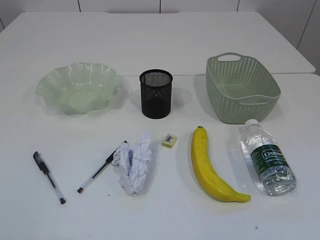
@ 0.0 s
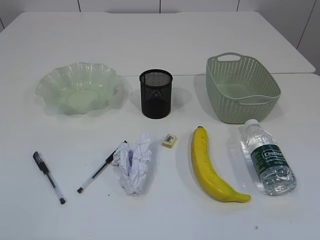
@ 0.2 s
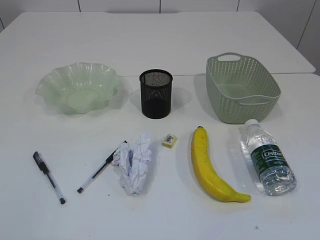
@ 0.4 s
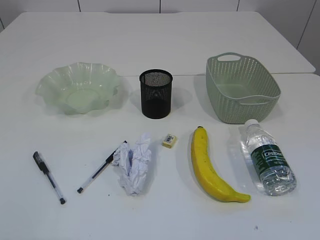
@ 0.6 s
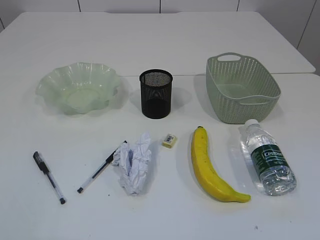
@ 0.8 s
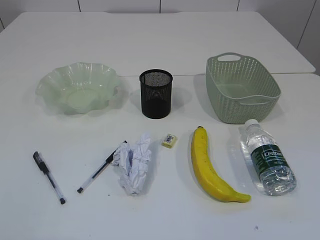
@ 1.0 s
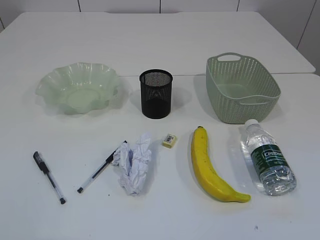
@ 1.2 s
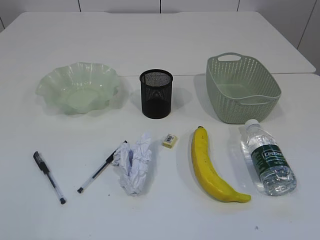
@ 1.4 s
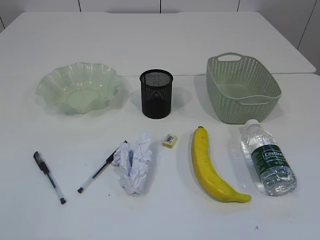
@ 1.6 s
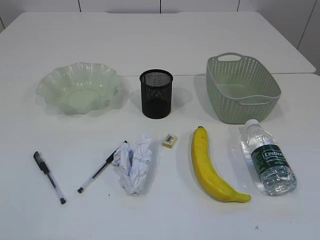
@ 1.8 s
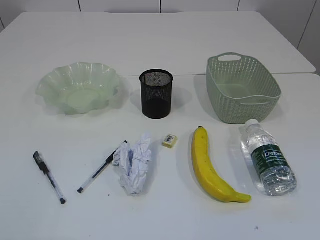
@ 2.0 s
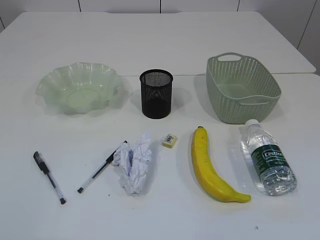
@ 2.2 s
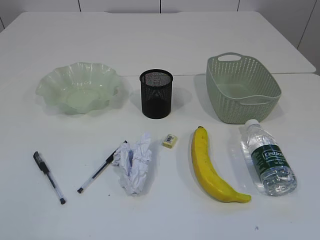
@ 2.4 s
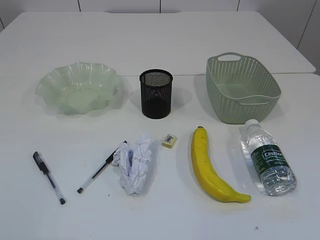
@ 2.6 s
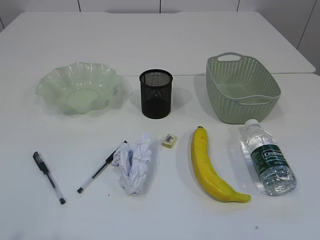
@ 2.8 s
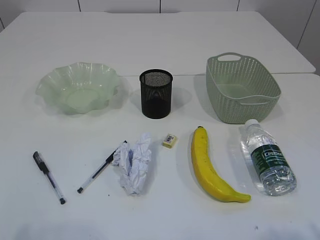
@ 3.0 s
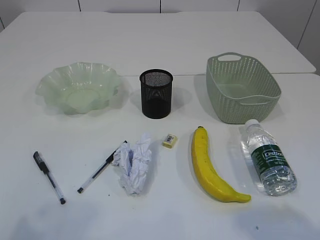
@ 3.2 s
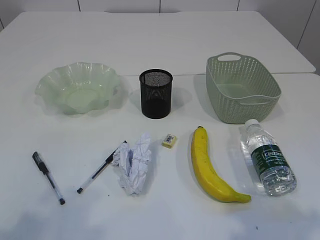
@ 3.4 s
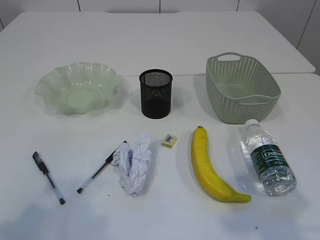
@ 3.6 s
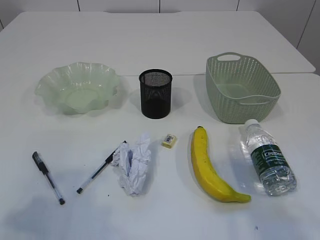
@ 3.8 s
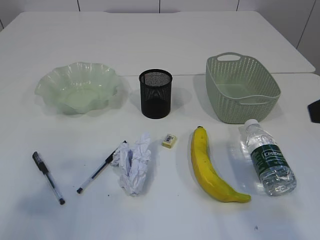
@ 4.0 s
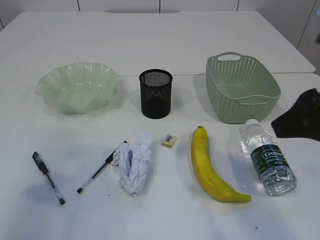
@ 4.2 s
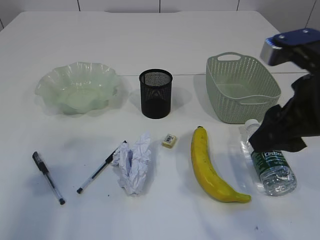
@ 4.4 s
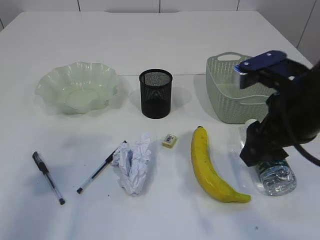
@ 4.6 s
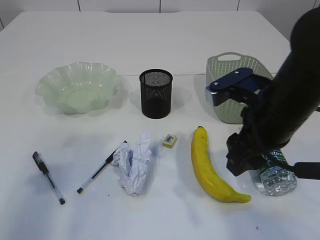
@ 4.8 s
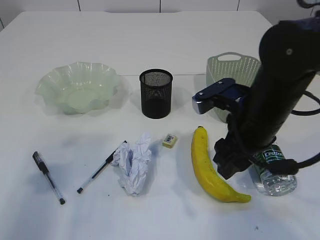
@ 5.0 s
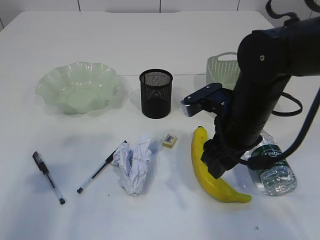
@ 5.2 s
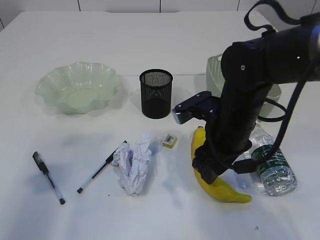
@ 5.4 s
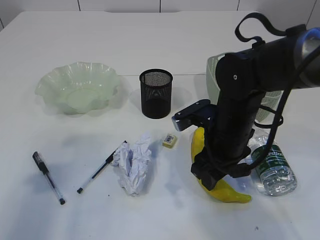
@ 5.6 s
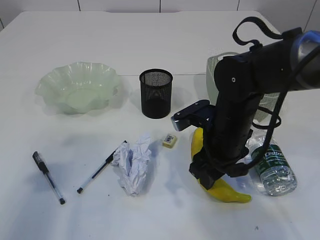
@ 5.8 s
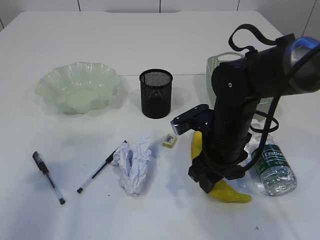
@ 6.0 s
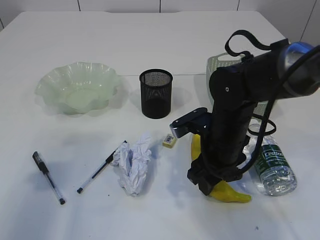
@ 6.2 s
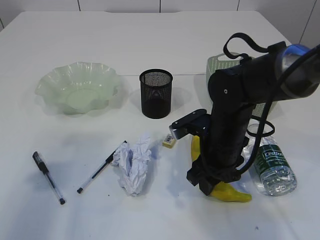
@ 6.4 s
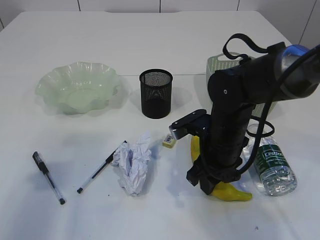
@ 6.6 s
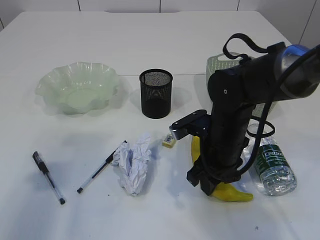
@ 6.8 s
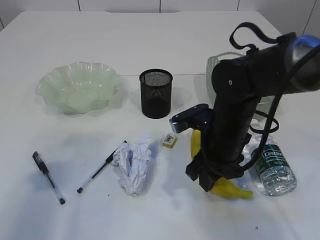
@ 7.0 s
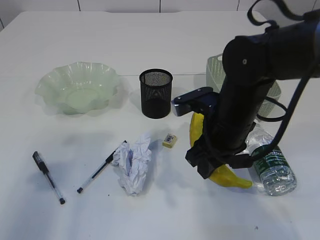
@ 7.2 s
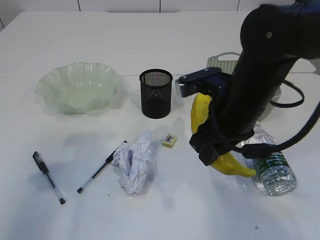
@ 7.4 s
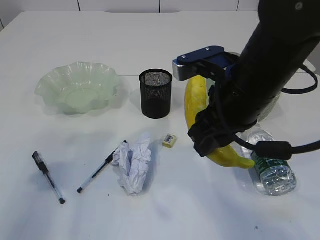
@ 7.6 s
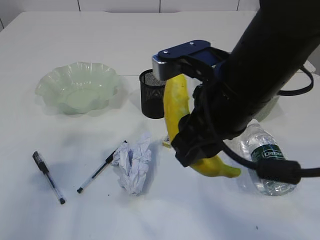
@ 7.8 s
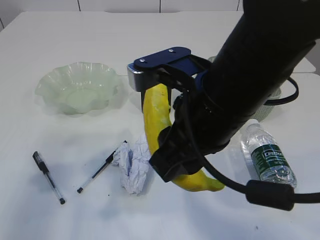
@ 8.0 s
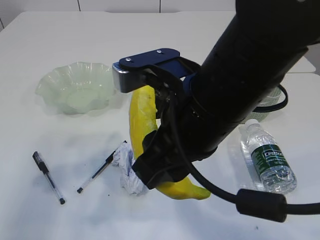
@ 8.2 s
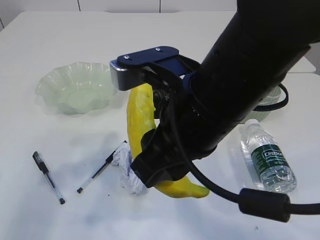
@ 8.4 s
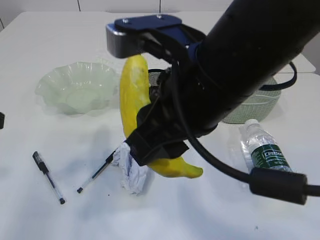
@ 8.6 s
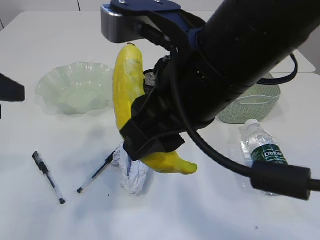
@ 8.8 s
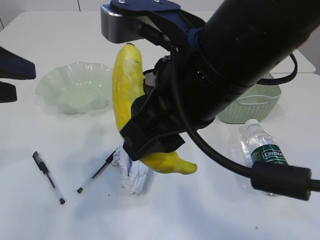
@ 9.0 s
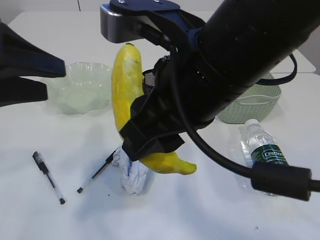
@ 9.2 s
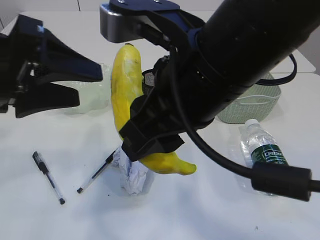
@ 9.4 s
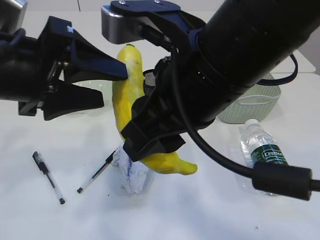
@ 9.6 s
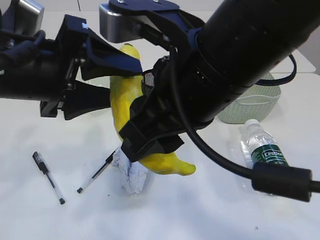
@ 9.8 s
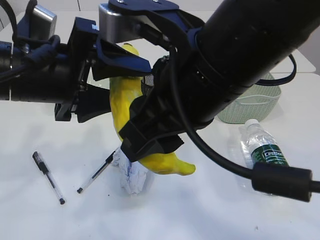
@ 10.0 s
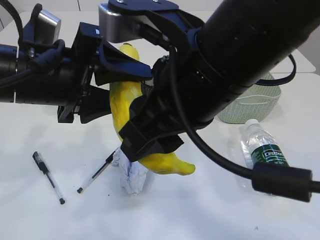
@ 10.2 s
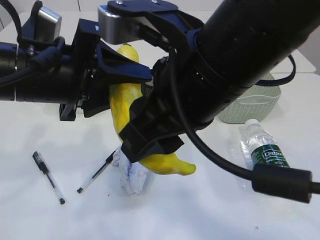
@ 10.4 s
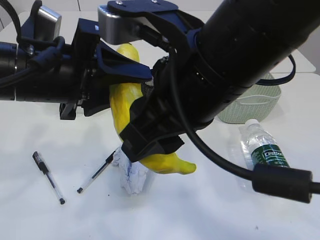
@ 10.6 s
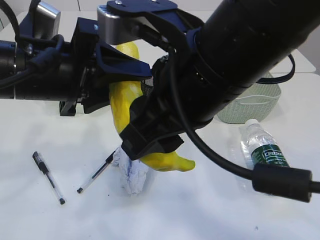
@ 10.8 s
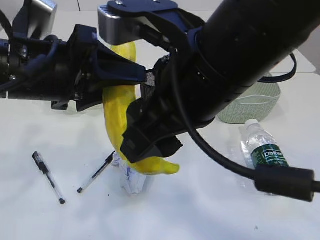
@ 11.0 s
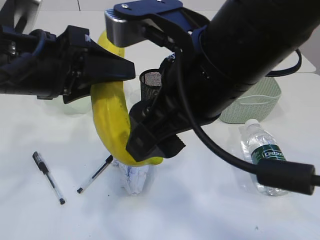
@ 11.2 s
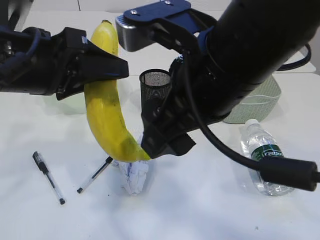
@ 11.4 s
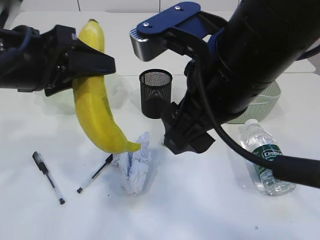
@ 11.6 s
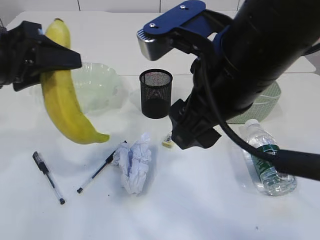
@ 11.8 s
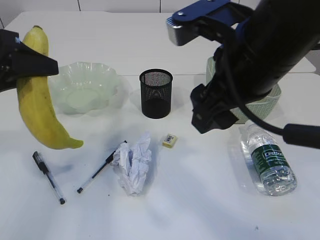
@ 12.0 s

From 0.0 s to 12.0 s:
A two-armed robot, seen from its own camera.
Step, from 7.6 s to 11.4 s: Hand over the banana.
From 3.0 s to 4.4 s: The grippers both shift forward by about 20 cm.
From 4.4 s to 6.0 s: The right gripper heads downward, forward and to the left, covering about 20 cm.
From 6.0 s to 7.6 s: The right gripper travels upward by some 10 cm.
From 7.6 s to 9.0 s: The left gripper shifts by roughly 5 cm. Meanwhile the right gripper shifts some 10 cm upward, backward and to the left.
From 9.0 s to 10.4 s: The left gripper shifts some 10 cm to the right.
From 10.4 s to 12.0 s: The left gripper travels to the left by approximately 10 cm. Meanwhile the right gripper goes about 5 cm to the right, and opens.

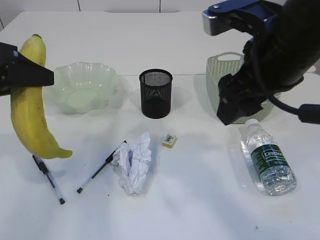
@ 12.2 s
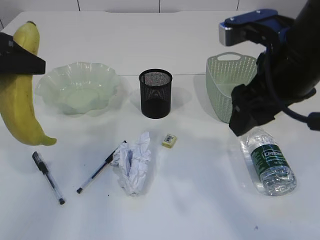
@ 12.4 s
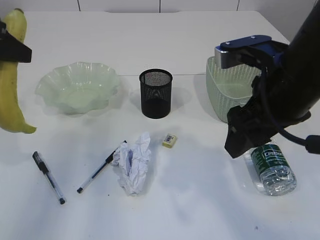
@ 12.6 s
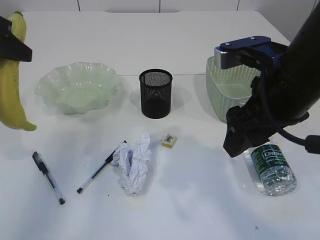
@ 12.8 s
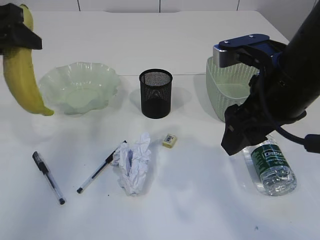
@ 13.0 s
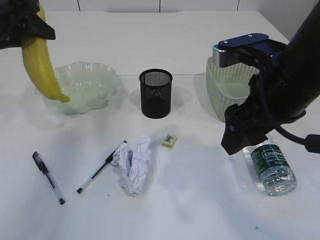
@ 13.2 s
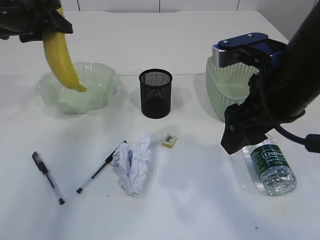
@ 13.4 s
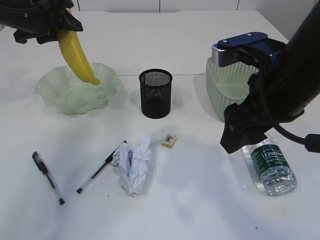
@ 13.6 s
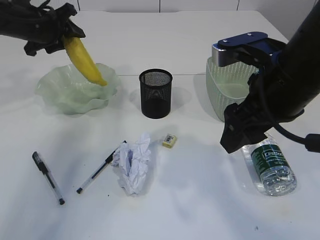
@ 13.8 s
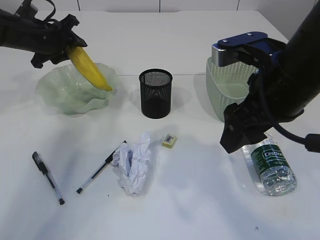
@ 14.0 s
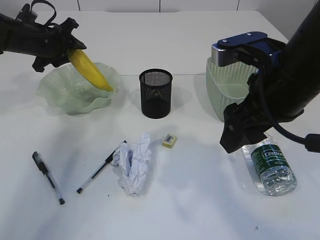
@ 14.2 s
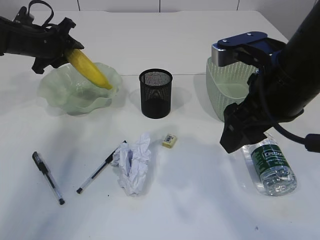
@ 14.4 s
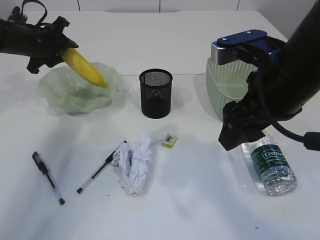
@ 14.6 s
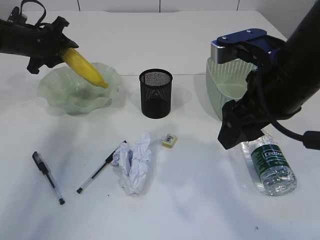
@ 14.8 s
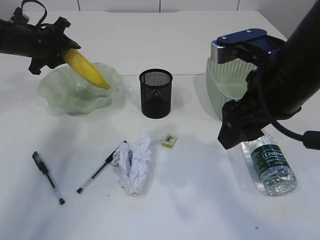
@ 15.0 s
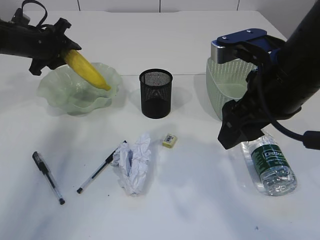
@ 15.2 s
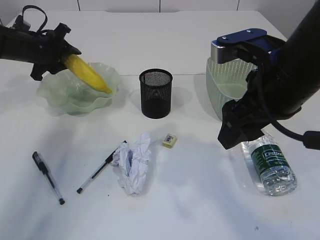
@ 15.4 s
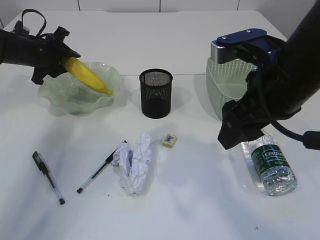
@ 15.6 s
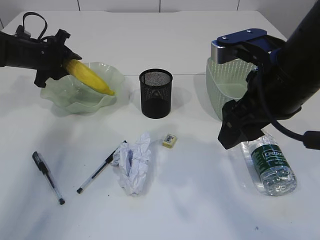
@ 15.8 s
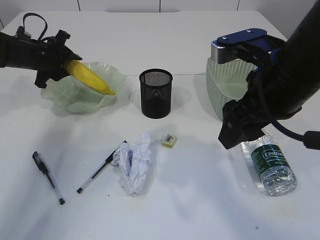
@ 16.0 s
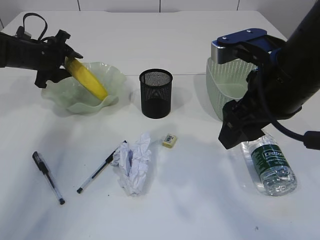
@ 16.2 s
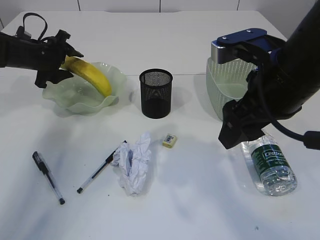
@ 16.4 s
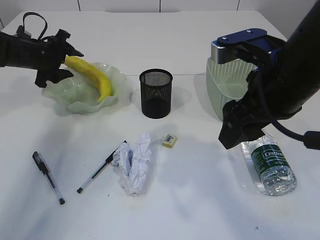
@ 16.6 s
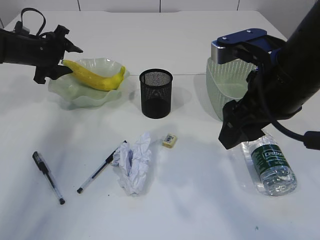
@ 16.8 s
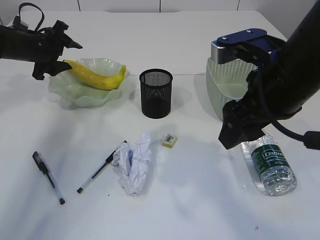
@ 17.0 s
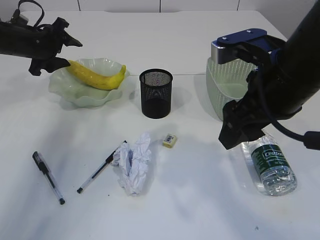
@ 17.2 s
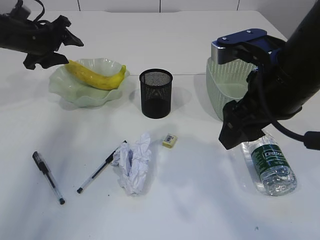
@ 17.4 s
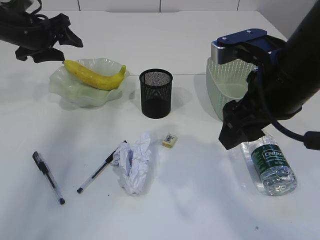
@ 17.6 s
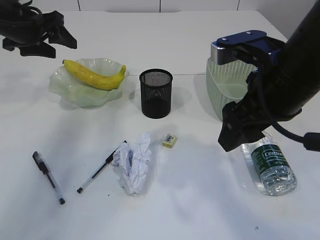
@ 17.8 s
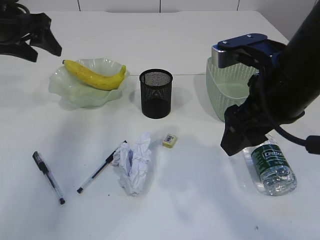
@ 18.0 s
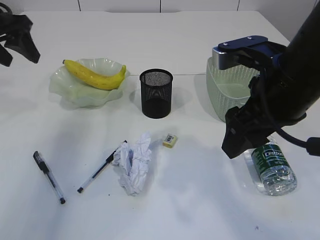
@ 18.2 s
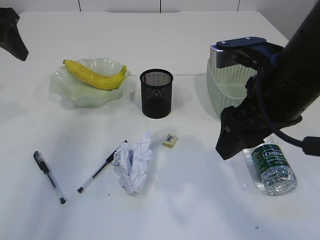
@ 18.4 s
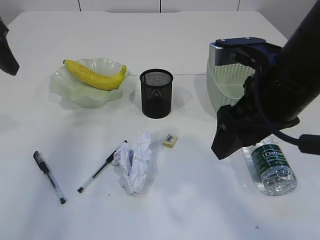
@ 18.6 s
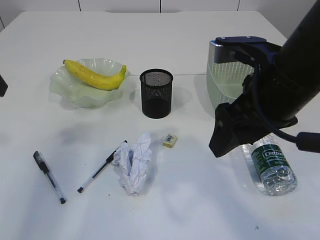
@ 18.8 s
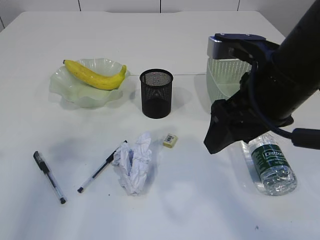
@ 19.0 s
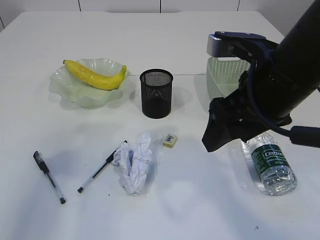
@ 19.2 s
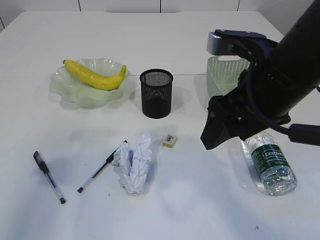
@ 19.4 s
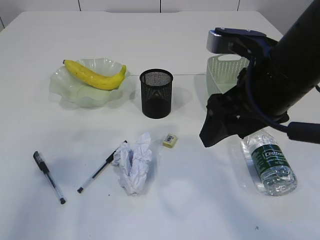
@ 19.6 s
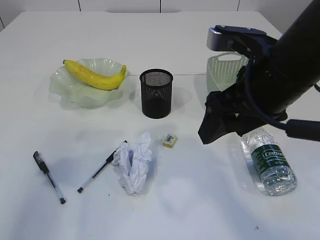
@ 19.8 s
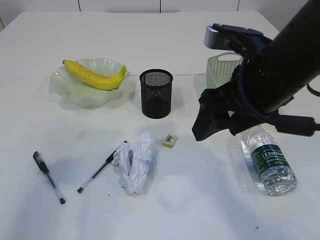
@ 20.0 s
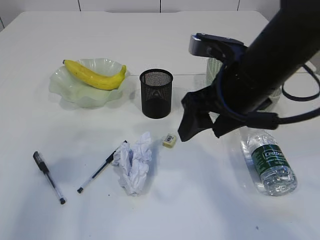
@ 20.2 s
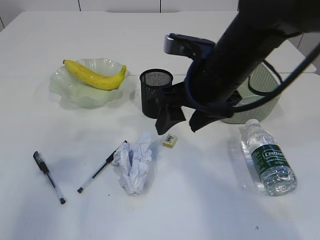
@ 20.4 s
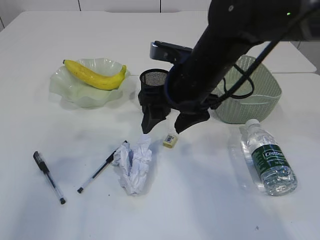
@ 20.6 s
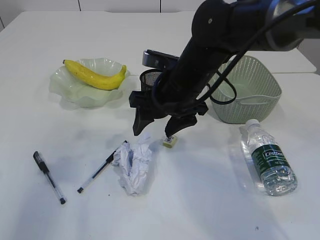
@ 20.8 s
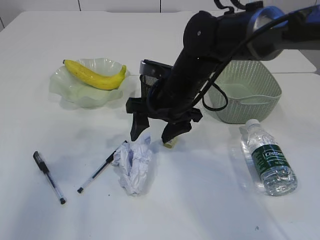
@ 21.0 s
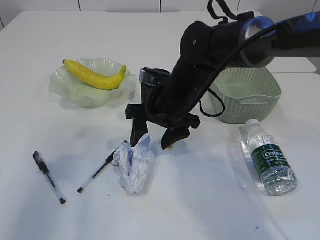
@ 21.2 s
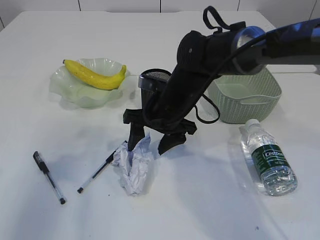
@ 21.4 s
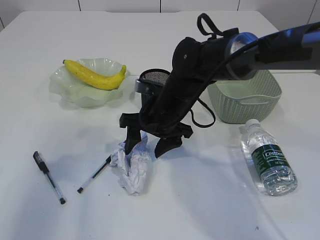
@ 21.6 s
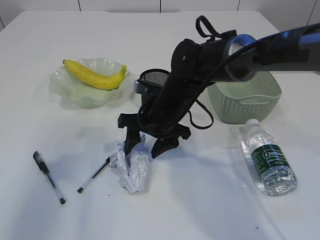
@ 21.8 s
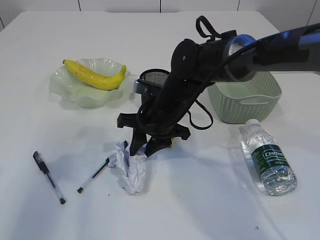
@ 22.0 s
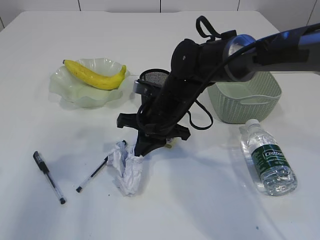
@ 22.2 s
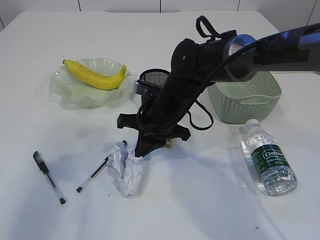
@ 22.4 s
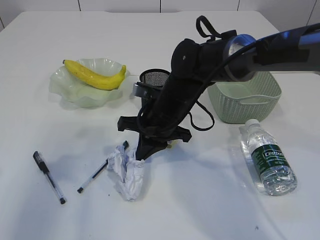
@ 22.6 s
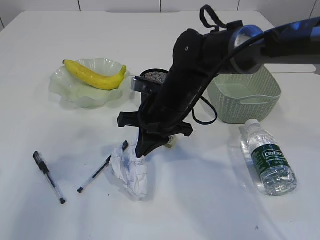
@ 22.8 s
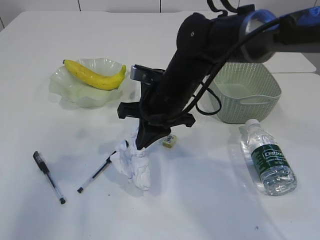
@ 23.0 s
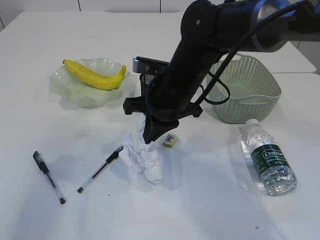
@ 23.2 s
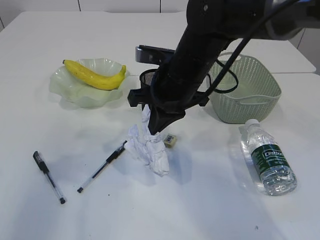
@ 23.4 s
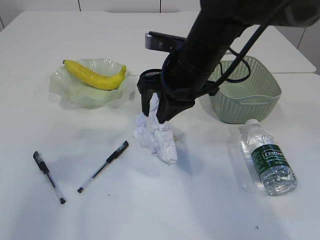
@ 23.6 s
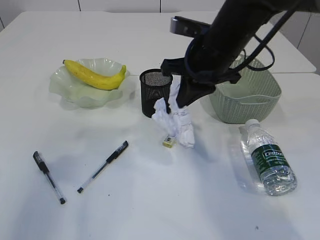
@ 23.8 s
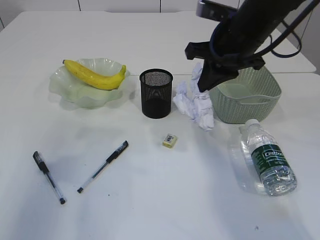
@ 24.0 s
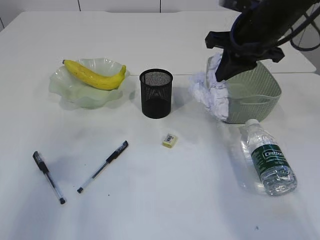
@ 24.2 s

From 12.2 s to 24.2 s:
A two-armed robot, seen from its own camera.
Step, from 12.2 s to 17.6 s: Place the banana in the plate.
Step, from 17.8 s to 23.4 s: Pick up the waste paper.
From 12.2 s to 13.8 s: The left gripper moves forward, some 20 cm.
From 13.8 s to 15.2 s: The left gripper is displaced downward by roughly 5 cm.
From 15.2 s to 16.6 s: The grippers make only small movements.
From 16.6 s to 18.2 s: The left gripper shifts some 20 cm upward and backward.
From 18.2 s to 19.8 s: The left gripper goes roughly 20 cm backward.
From 19.8 s to 21.2 s: The right gripper travels forward, downward and to the left by approximately 20 cm.
From 21.2 s to 22.6 s: The right gripper closes.
From 22.6 s to 24.2 s: The right gripper goes roughly 20 cm to the right and upward.
